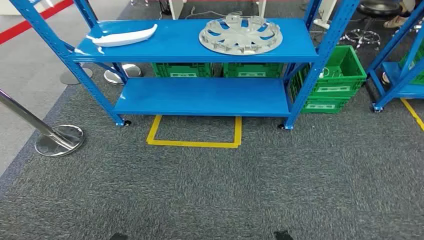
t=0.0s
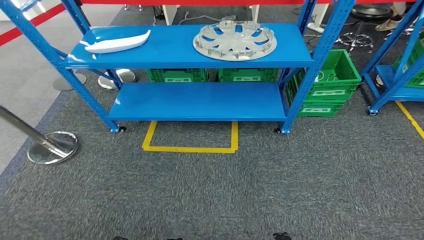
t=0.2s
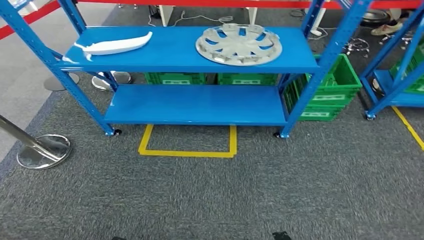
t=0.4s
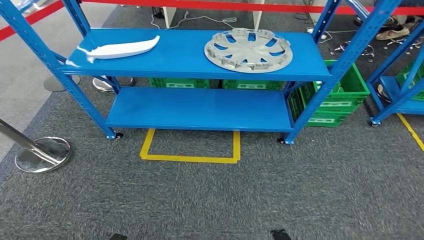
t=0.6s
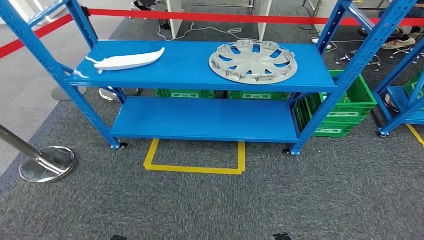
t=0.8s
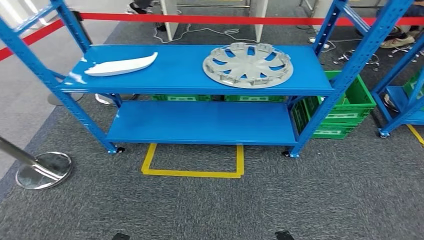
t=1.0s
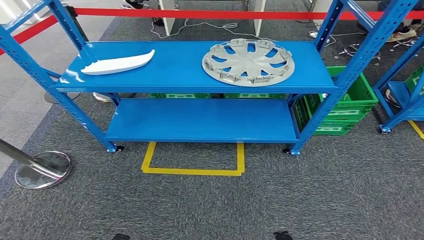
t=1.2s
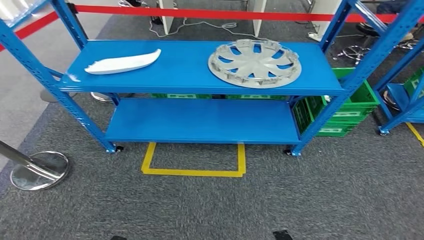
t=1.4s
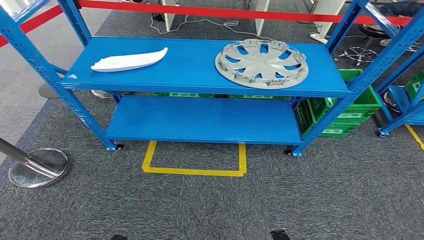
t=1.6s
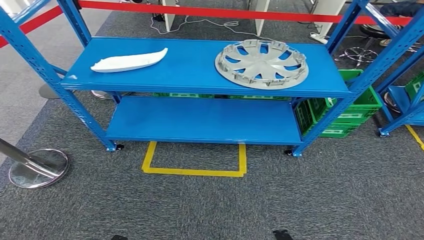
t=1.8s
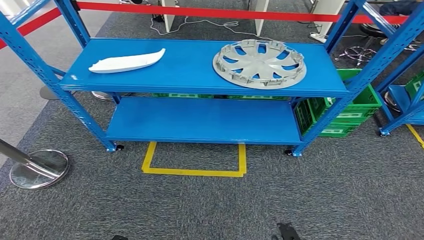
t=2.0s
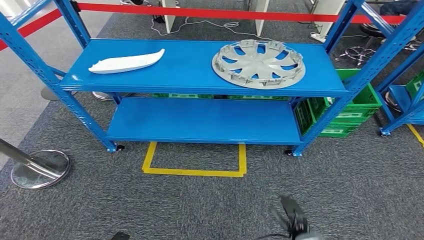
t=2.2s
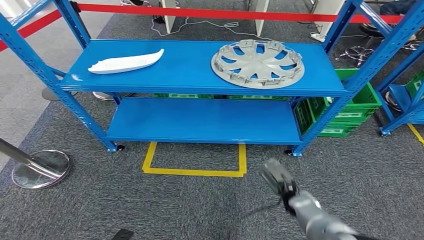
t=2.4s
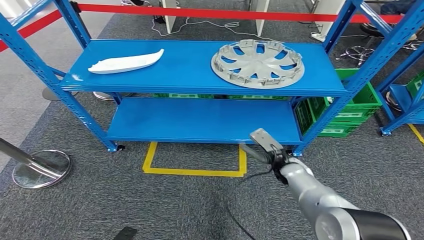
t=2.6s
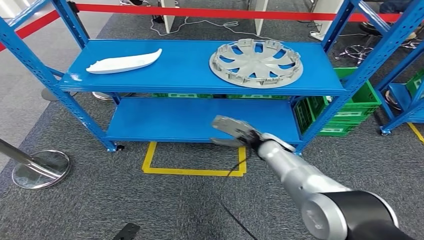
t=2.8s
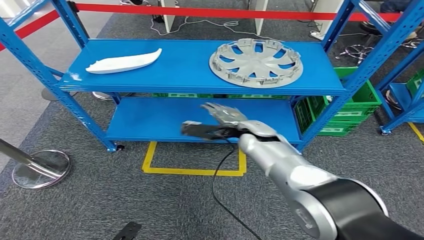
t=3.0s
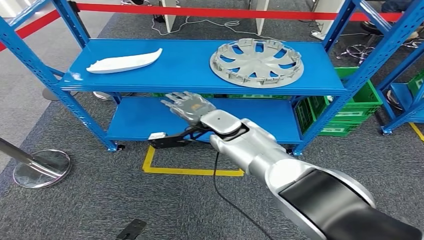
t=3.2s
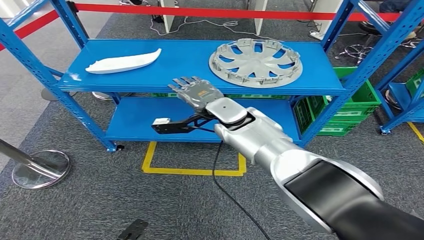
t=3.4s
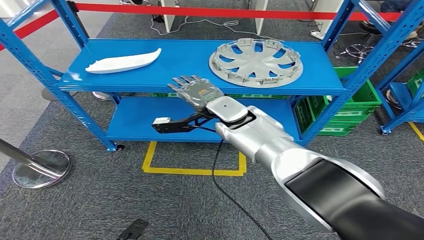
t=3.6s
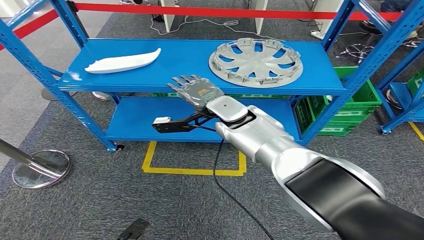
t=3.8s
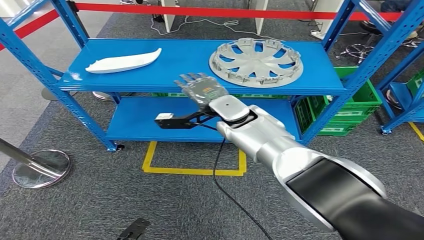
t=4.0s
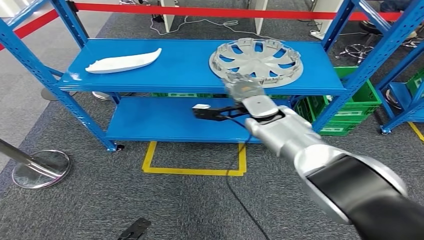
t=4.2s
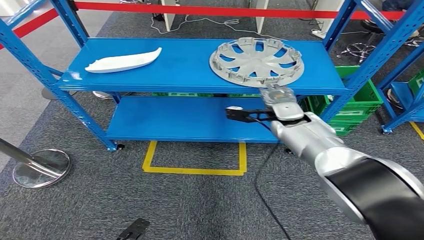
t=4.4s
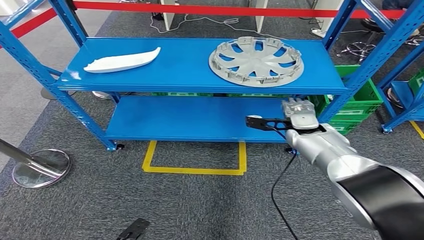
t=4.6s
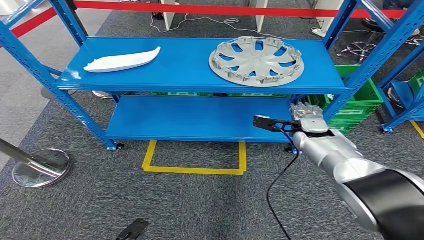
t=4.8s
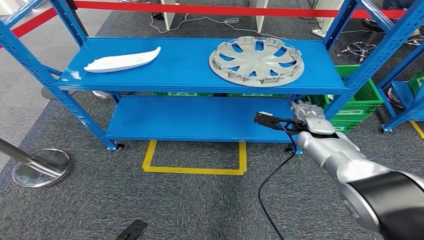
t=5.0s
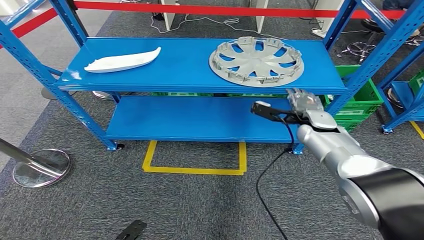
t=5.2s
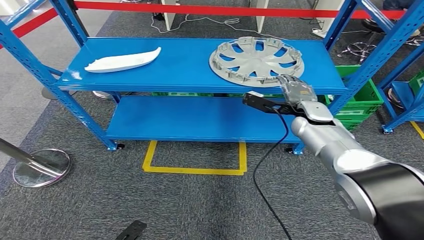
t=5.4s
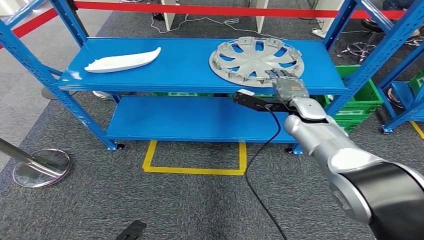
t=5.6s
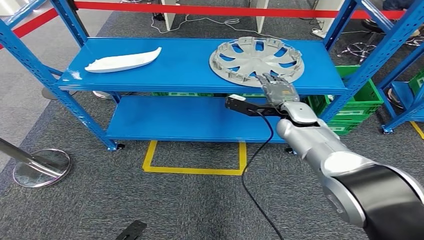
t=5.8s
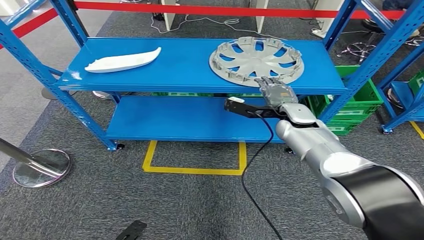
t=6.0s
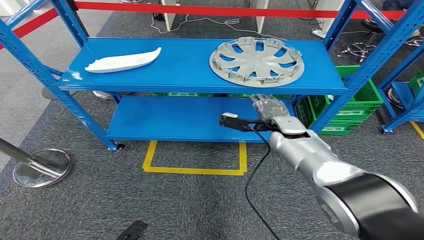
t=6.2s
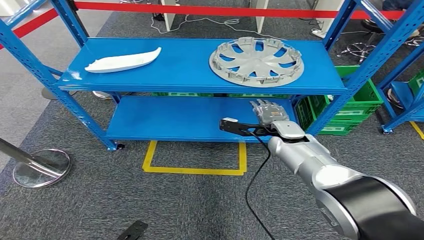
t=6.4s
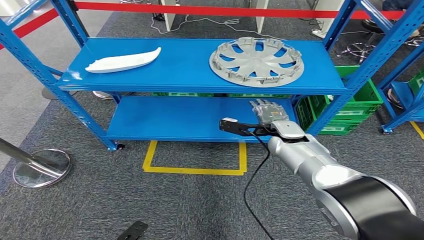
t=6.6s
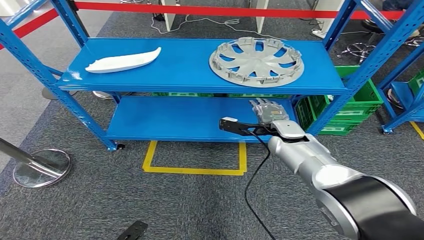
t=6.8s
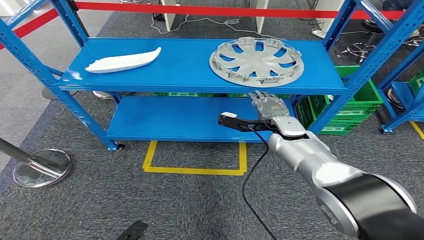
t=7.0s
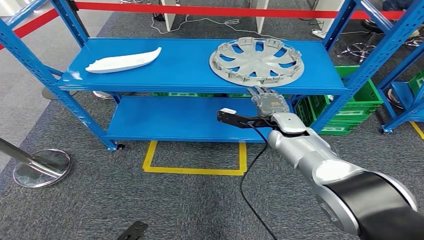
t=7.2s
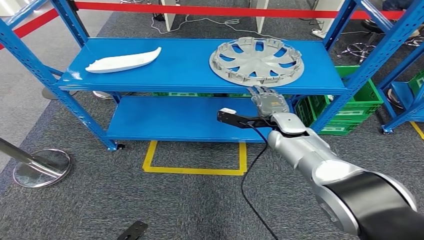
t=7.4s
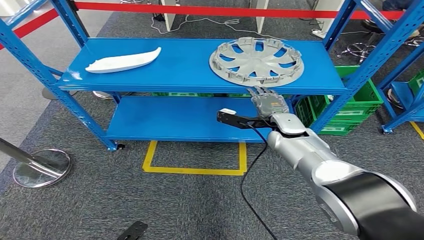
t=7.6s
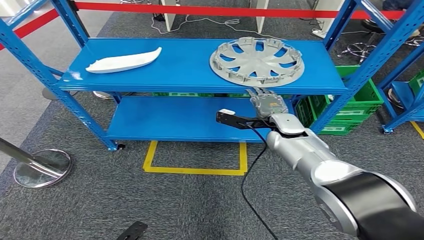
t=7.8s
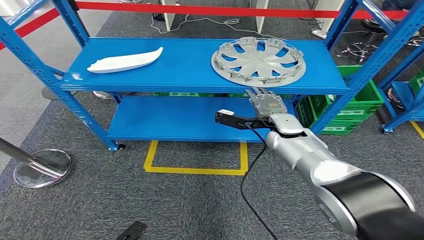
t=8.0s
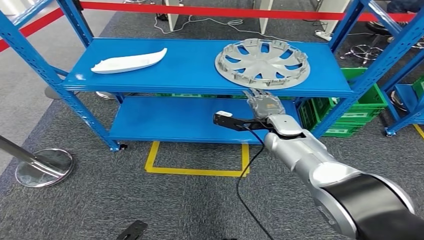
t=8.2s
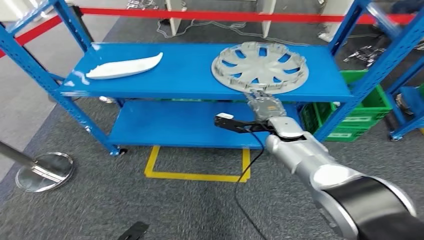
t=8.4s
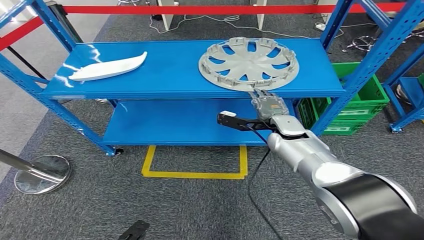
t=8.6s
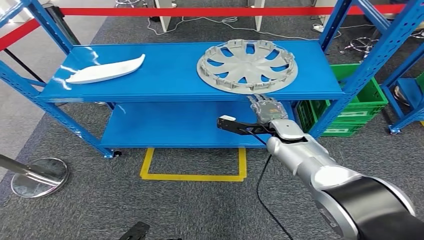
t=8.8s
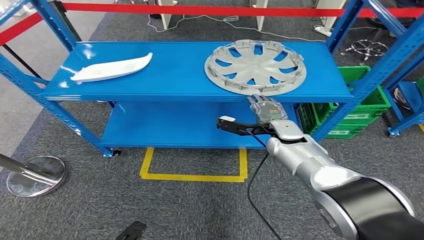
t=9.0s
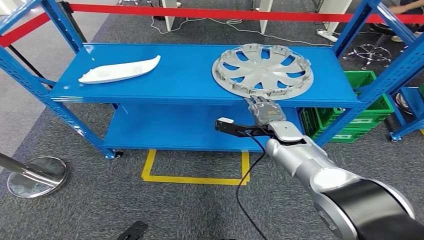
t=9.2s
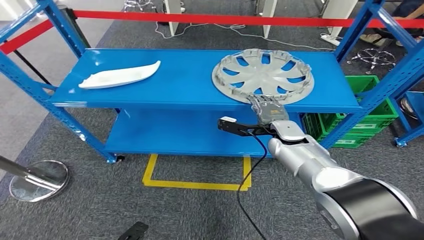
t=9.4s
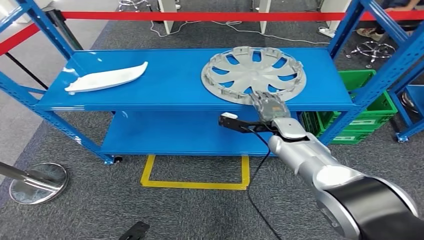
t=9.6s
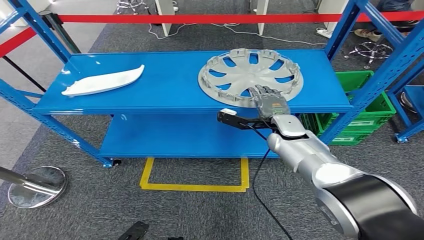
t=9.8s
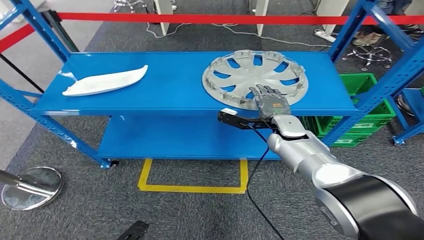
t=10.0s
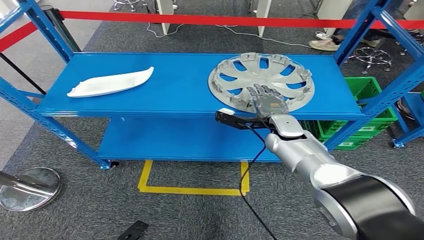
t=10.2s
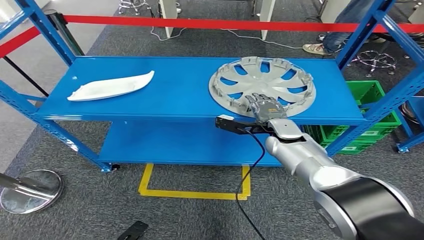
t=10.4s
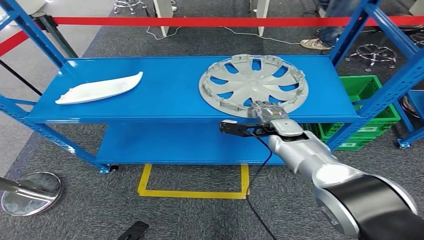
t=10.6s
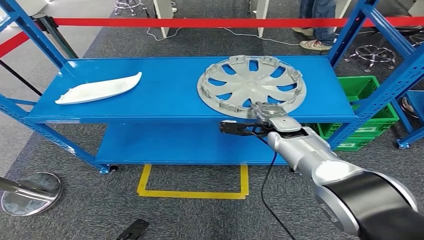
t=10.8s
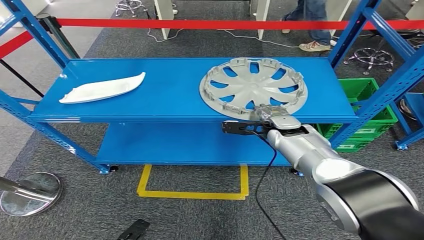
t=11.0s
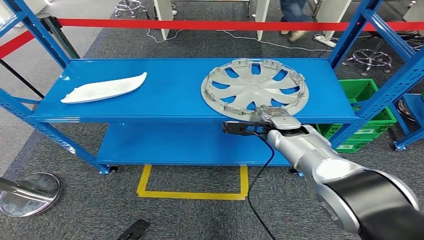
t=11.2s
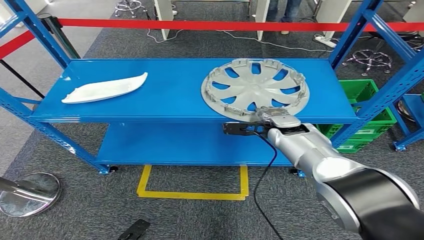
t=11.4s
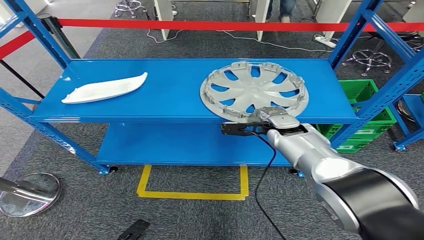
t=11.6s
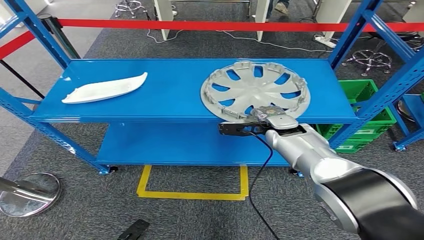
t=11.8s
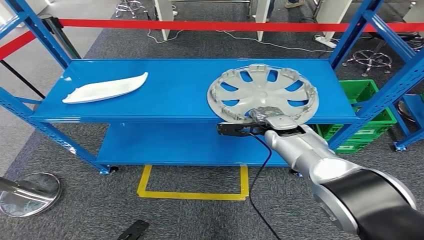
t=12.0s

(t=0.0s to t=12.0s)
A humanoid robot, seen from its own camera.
t=4.4s - t=6.0s: The right hand moves some 10 cm to the right and comes back.
t=6.0s - t=7.6s: There are only small adjustments of the hands.

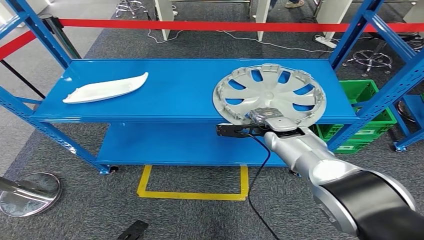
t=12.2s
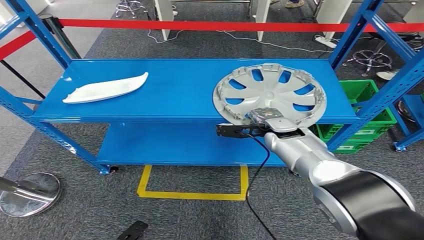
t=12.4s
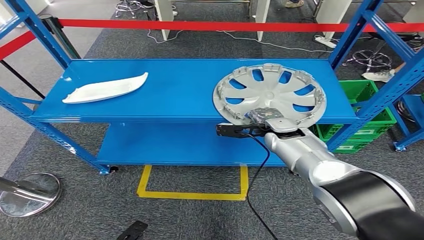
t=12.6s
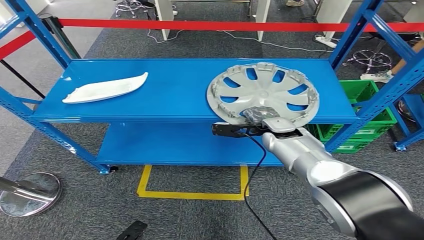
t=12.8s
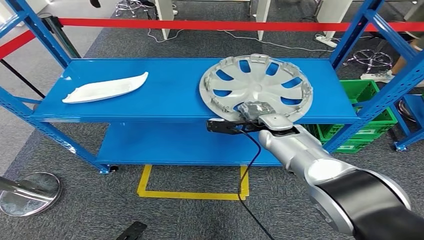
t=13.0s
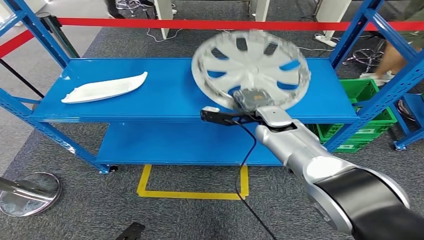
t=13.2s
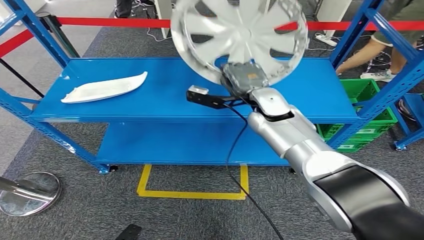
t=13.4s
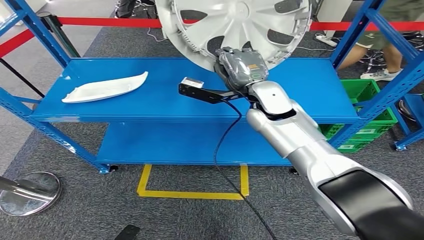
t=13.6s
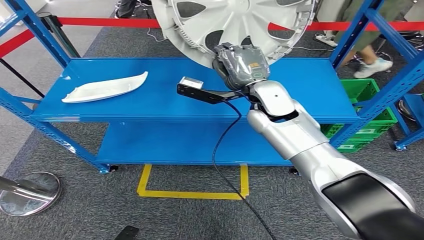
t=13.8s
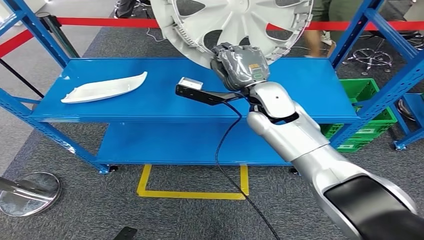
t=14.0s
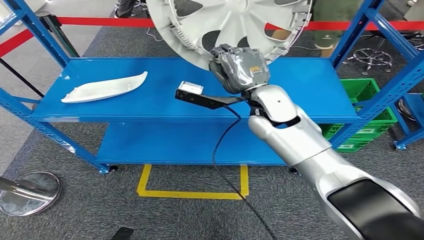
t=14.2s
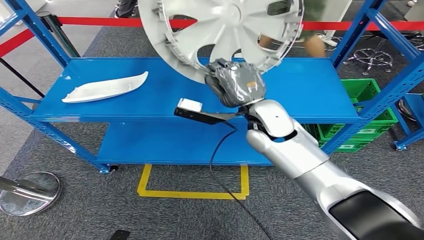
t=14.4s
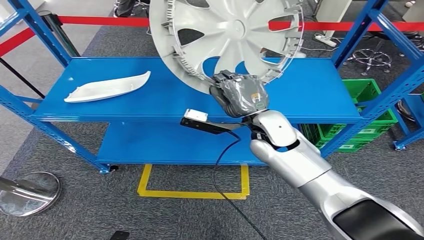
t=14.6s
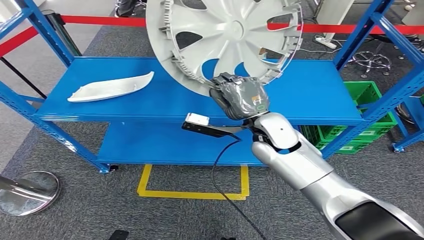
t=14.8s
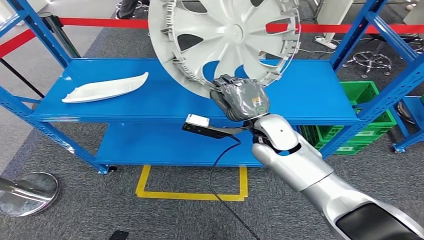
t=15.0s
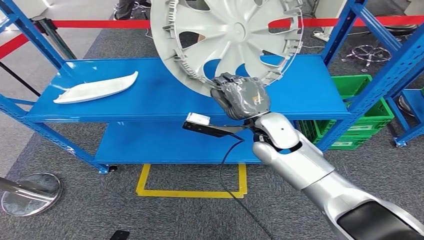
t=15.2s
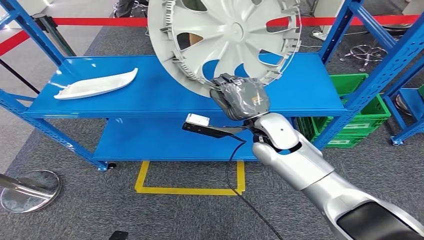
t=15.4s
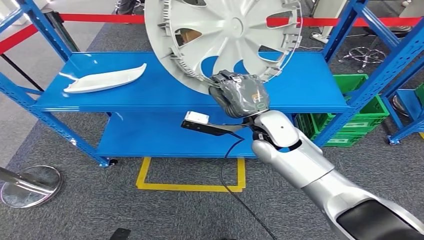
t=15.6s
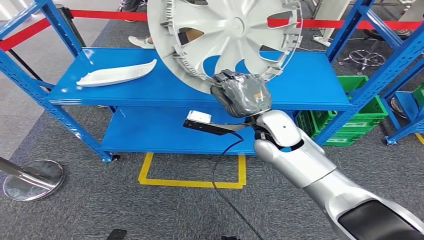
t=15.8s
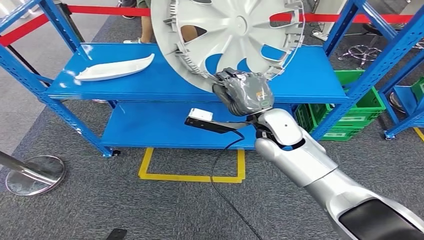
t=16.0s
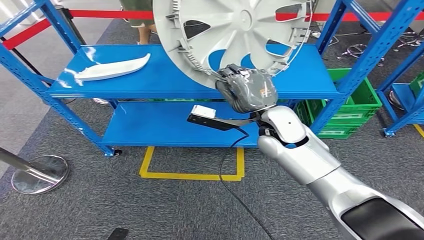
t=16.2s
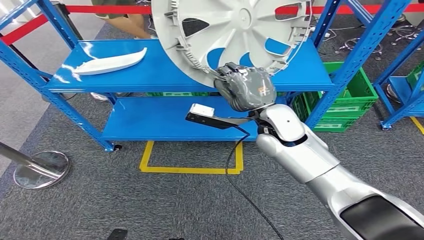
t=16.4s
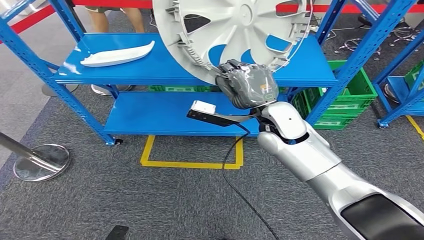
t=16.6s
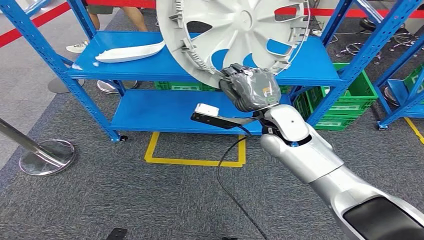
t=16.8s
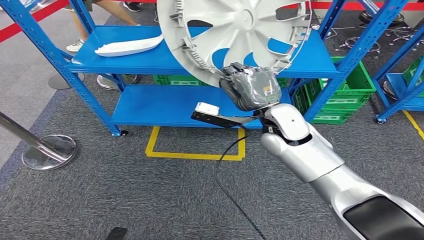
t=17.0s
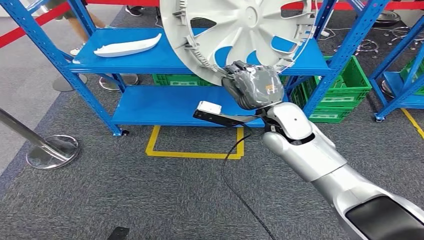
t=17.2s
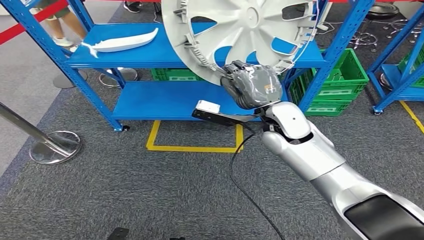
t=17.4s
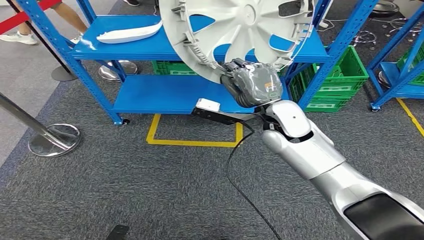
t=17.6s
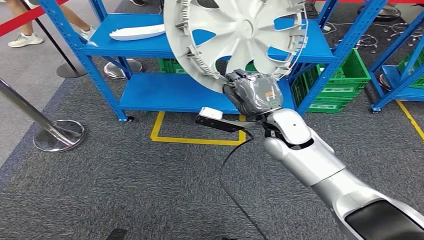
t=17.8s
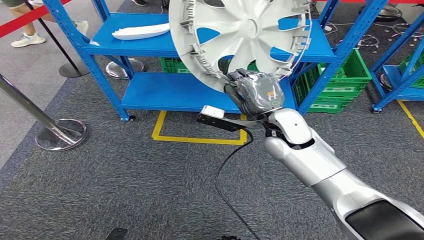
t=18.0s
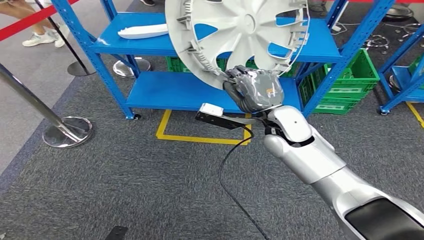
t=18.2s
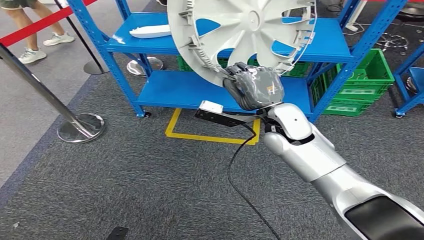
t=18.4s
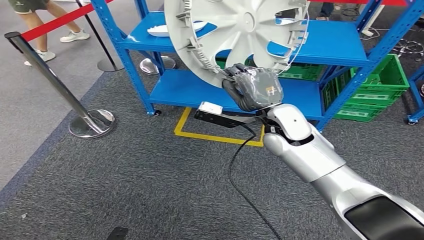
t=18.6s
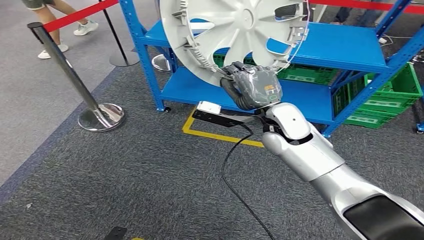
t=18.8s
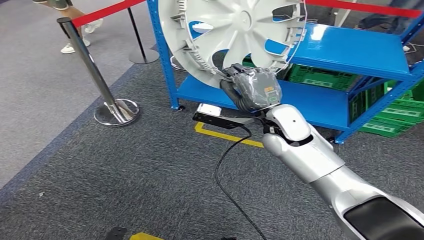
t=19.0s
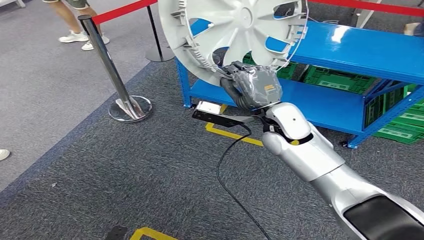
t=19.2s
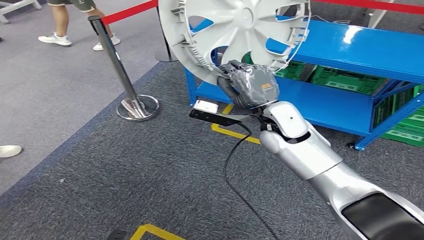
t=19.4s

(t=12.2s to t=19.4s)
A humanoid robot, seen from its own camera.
Step, t=12.2s - t=14.8s: Pick up the small component from the shelf.
